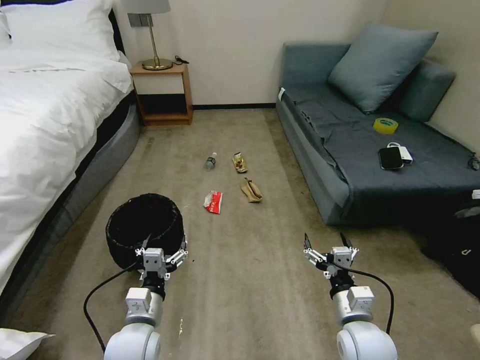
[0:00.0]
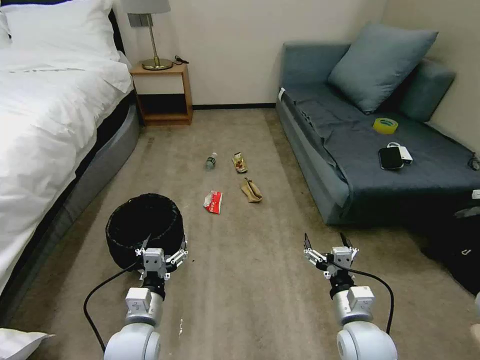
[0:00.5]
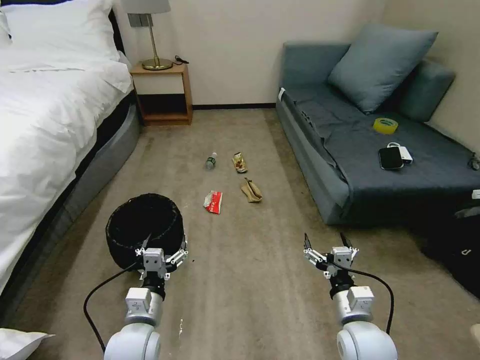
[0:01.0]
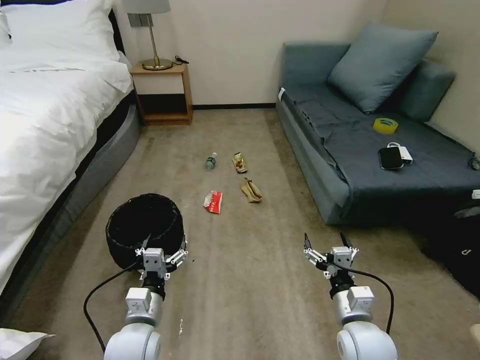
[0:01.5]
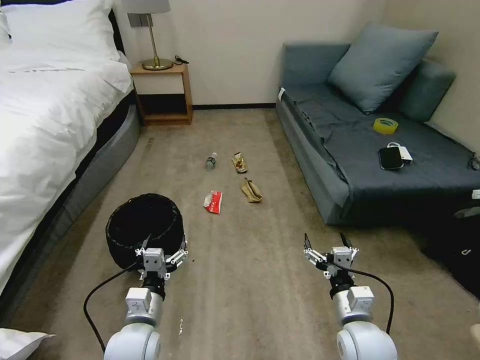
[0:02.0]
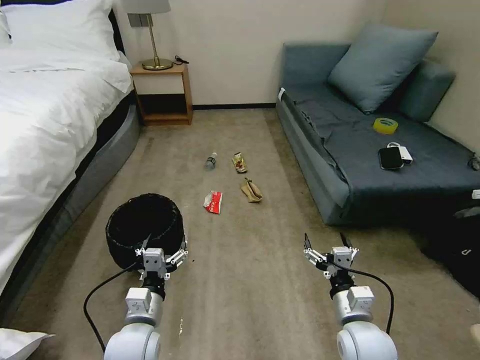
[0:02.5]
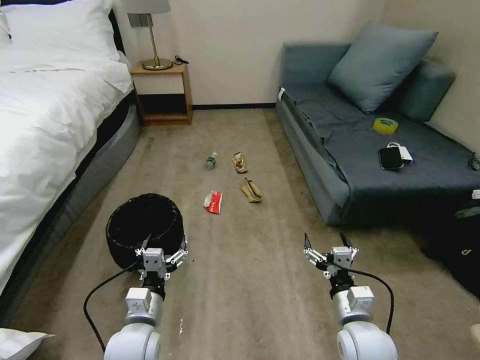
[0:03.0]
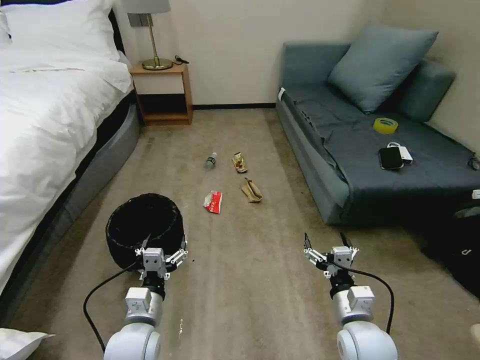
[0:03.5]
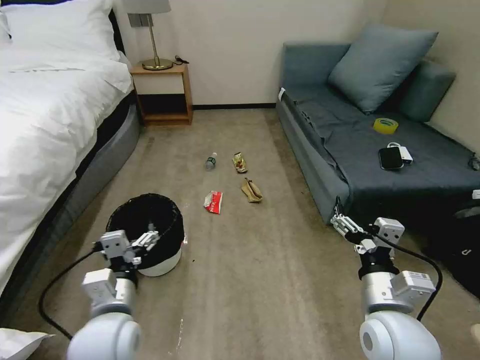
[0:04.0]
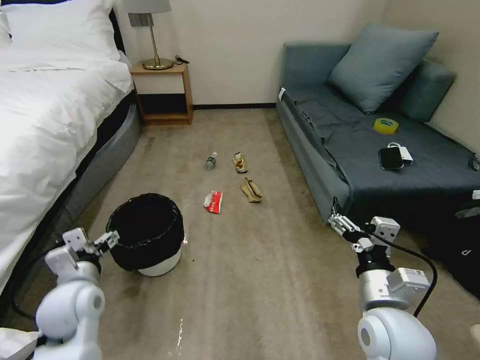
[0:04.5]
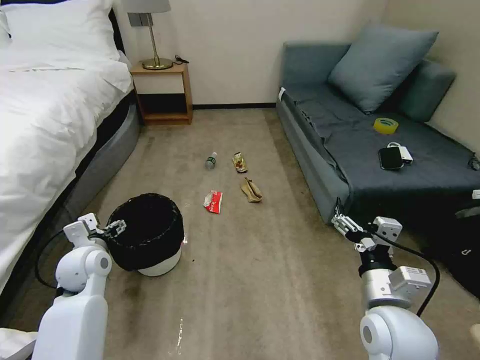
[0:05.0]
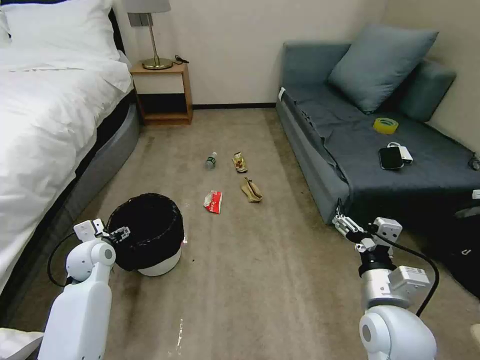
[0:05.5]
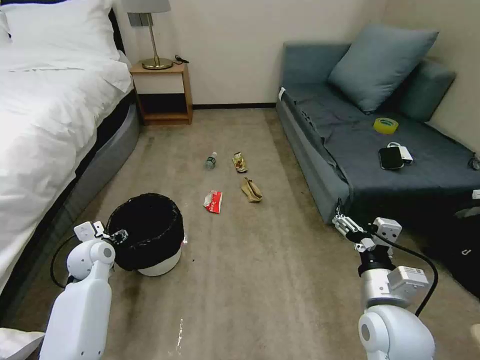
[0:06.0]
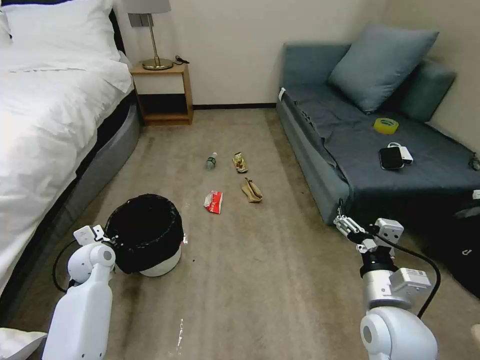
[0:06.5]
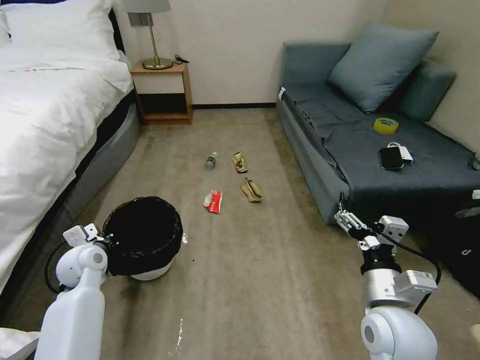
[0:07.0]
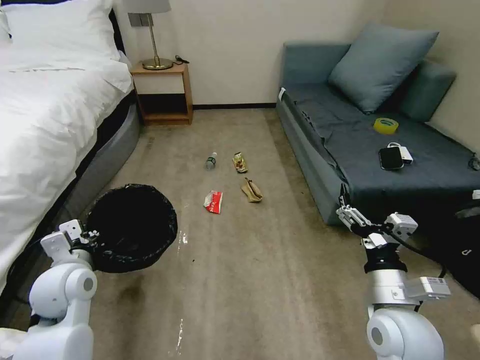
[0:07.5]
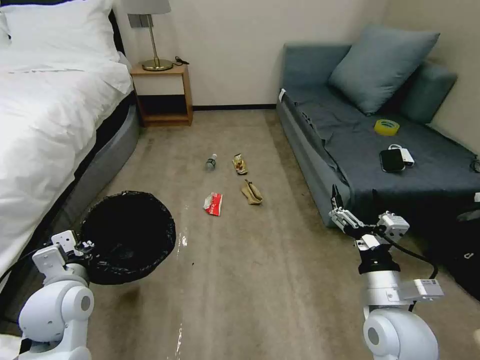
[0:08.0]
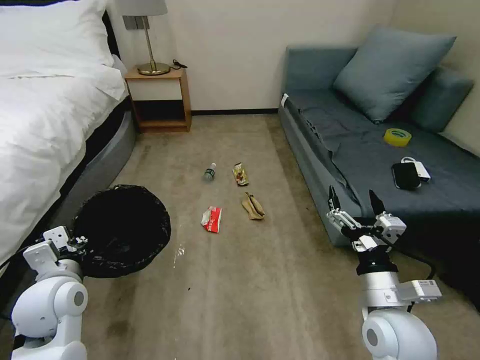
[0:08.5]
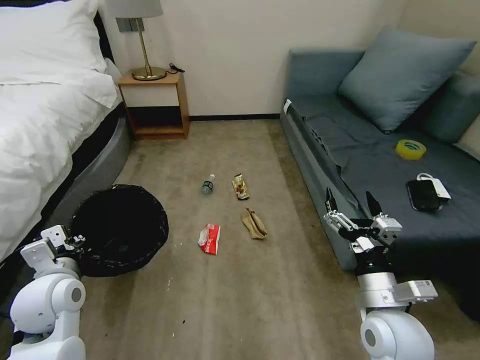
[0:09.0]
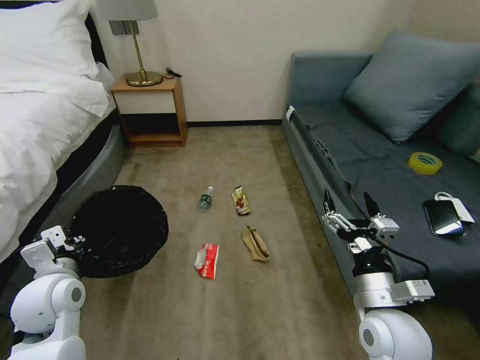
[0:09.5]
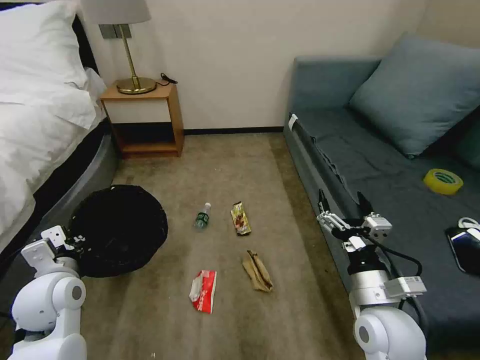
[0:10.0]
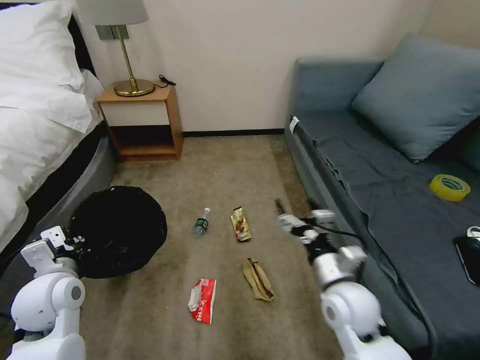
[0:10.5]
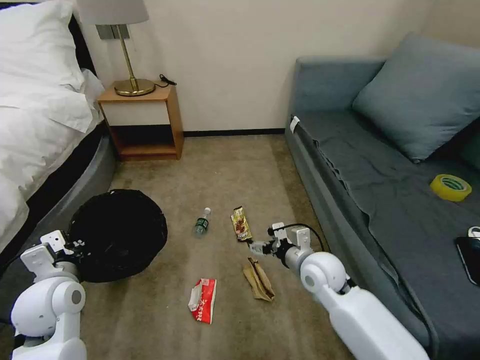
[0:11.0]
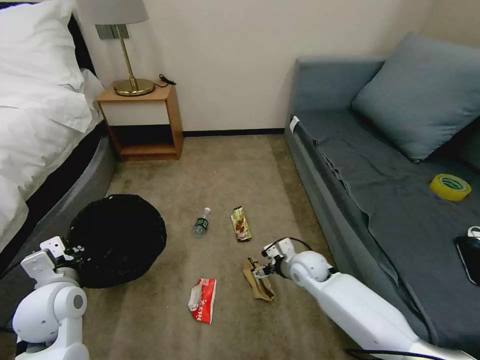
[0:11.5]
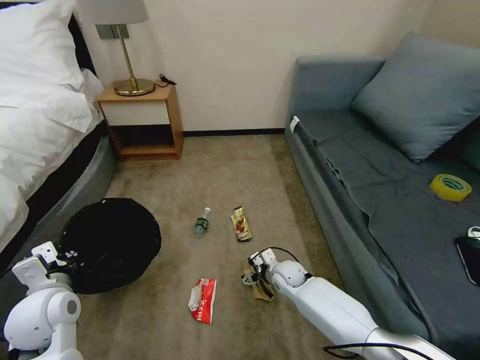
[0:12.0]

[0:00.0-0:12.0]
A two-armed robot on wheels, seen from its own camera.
Task of the whole recording: Pick up the trash bin, then pick up the garbage on the floor and place it into the trash bin.
0:02.0 to 0:04.0: The two grippers go some 10 cm upward.
0:04.0 to 0:06.0: The left gripper is displaced forward and to the left by approximately 25 cm.
0:06.0 to 0:08.0: The left gripper goes about 15 cm backward and upward, and closes up.
0:10.0 to 0:12.0: The right gripper goes roughly 30 cm downward, forward and to the left.

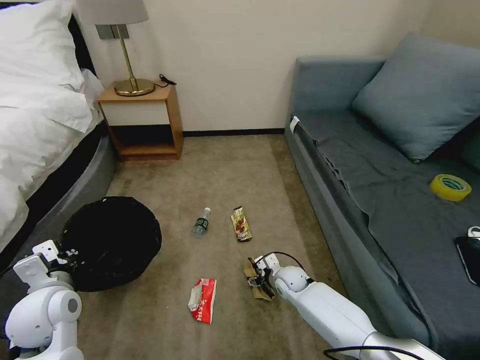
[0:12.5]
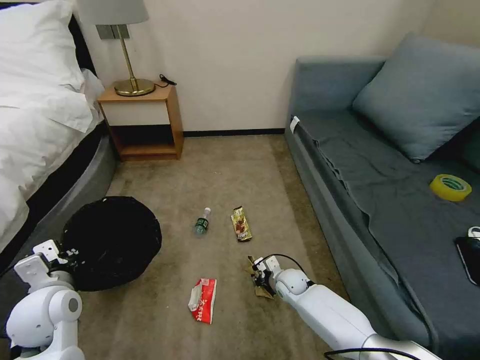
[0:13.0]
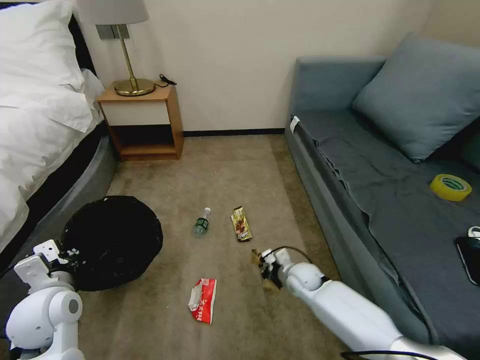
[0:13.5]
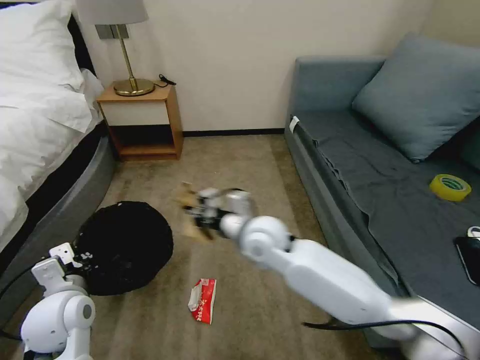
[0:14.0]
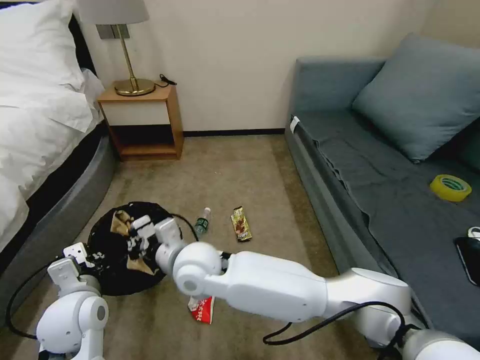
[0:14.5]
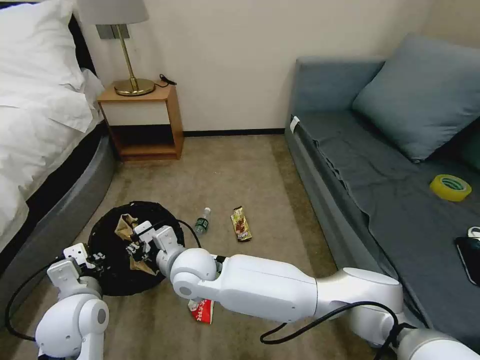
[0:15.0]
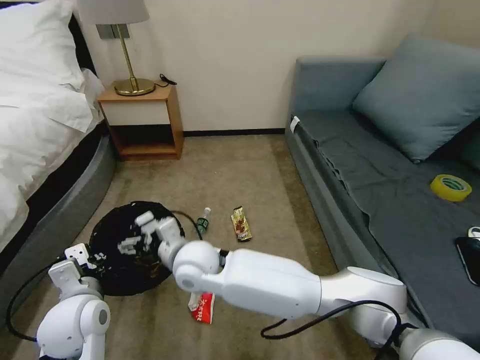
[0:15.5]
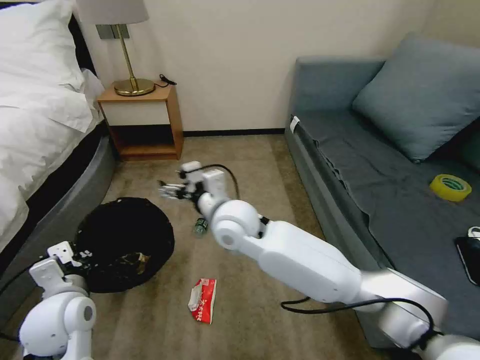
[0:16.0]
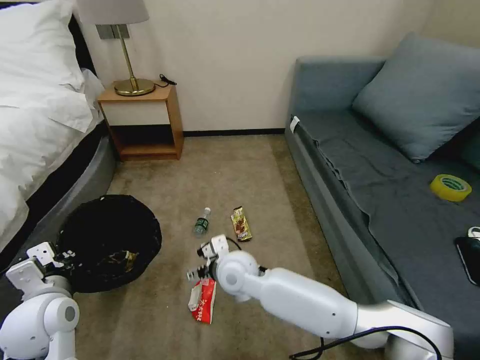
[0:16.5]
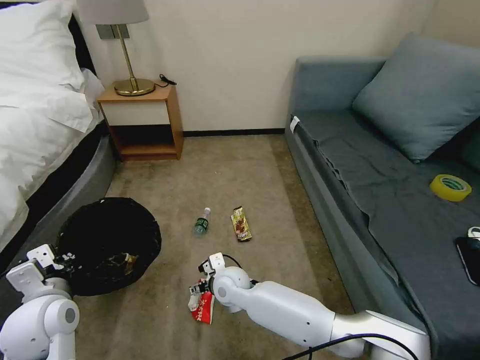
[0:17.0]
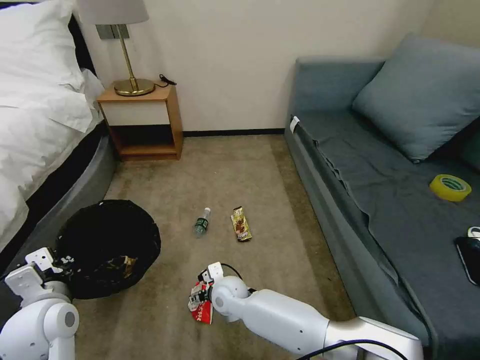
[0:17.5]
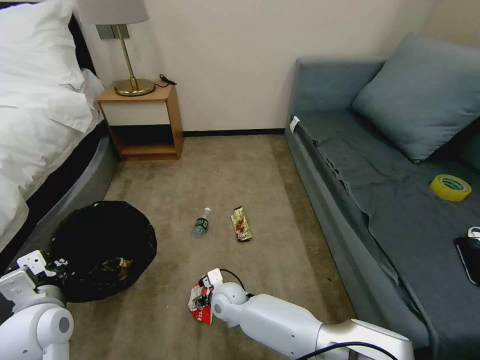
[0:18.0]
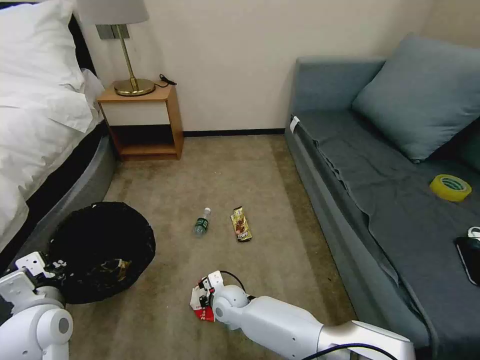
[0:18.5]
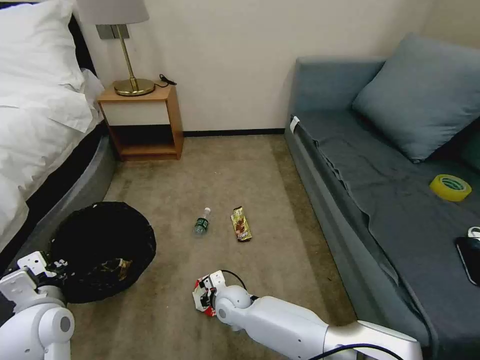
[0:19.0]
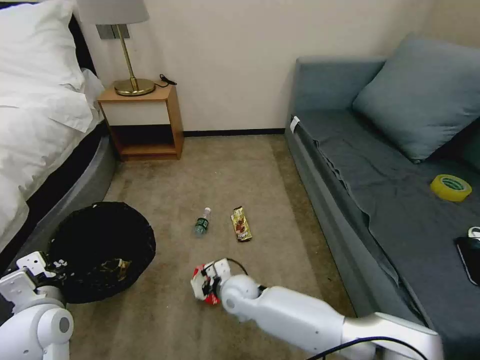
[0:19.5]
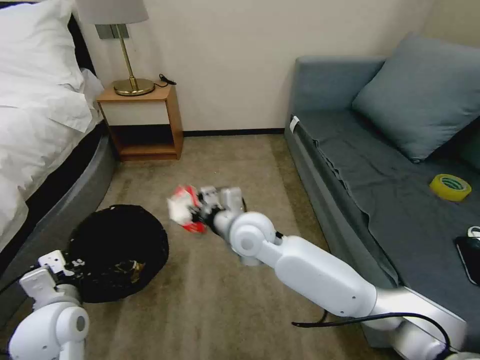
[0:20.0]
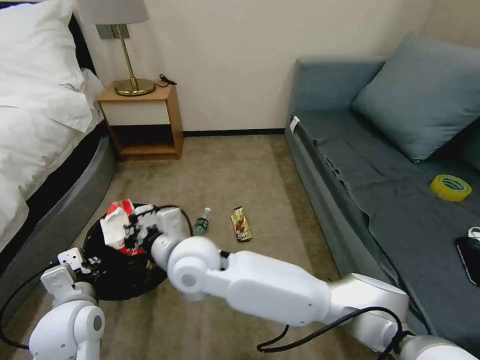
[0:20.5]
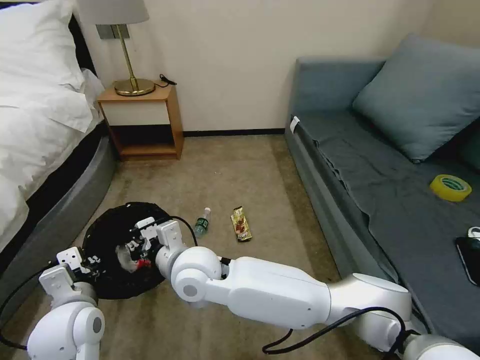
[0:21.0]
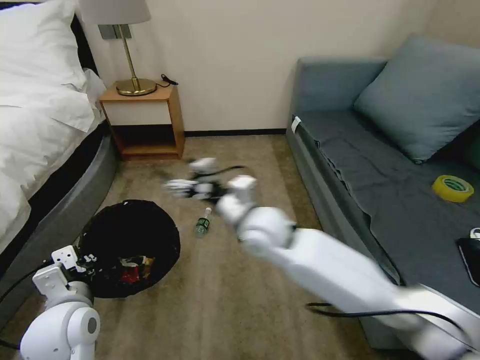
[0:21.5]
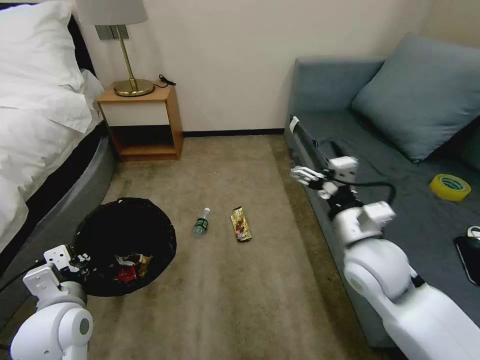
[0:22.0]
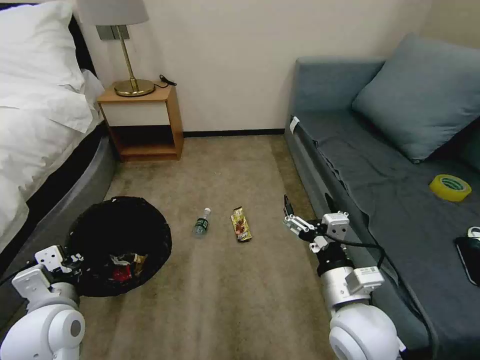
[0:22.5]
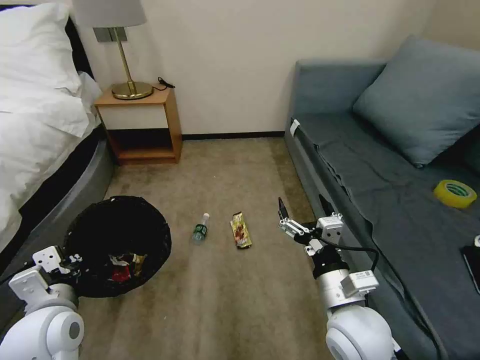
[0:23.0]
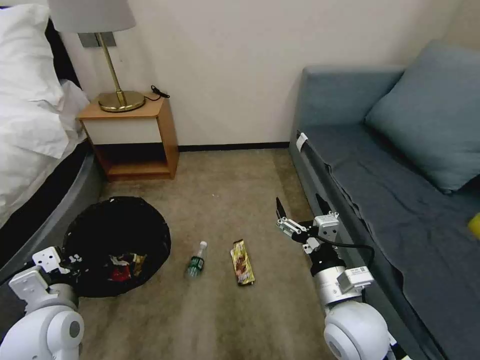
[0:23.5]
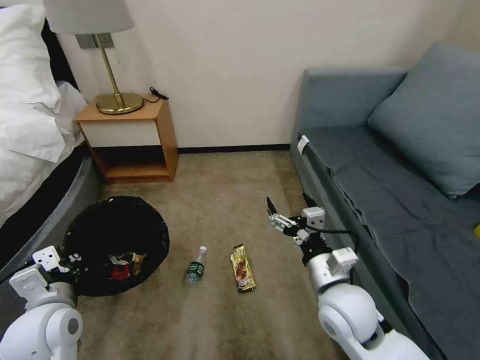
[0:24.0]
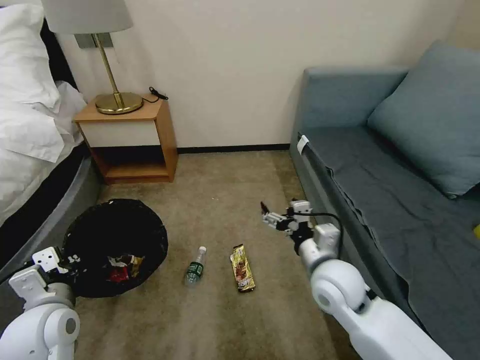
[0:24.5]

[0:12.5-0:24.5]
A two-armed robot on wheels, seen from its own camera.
Task of the whole recording: Pick up the trash bin, then pick up the garbage on the floor and place it into the trash bin.
0:12.5 to 0:14.5: The left gripper travels to the right by roughly 5 cm; the right gripper shifts about 35 cm to the left and upward, and closes its fingers.
0:14.5 to 0:16.5: The right gripper travels to the right and downward by roughly 10 cm, and opens up.
0:16.5 to 0:18.5: The right gripper is displaced downward by approximately 15 cm, and closes its fingers.
0:18.5 to 0:20.5: The right gripper is displaced upward by about 30 cm.
0:20.5 to 0:22.5: The right gripper goes approximately 30 cm to the right, and opens up.
0:22.5 to 0:24.5: The right gripper travels forward by about 10 cm.

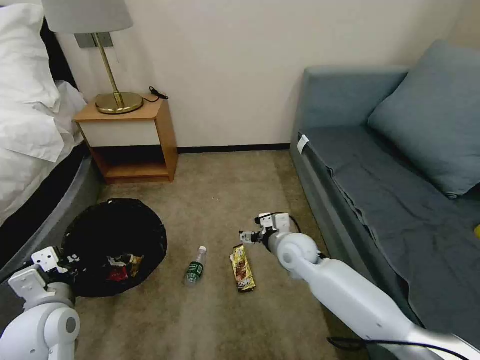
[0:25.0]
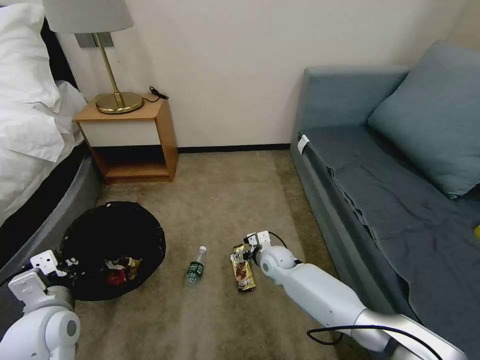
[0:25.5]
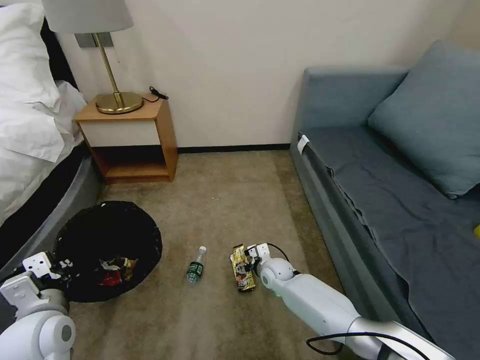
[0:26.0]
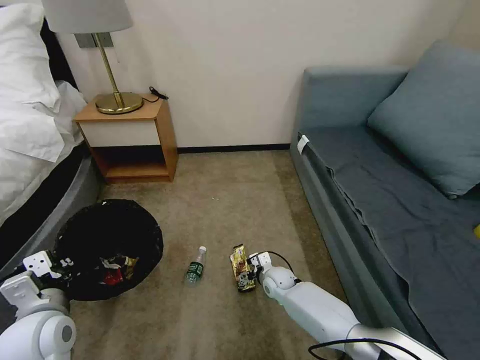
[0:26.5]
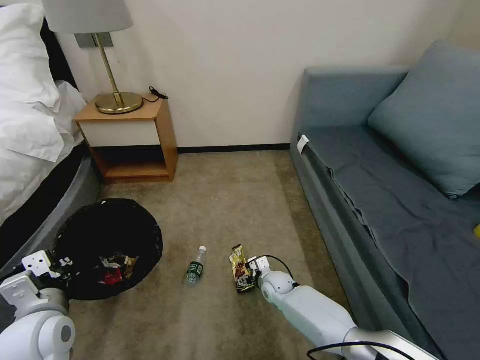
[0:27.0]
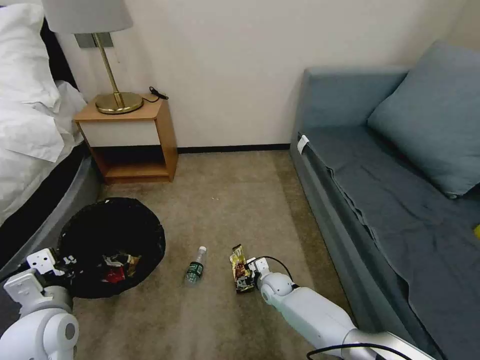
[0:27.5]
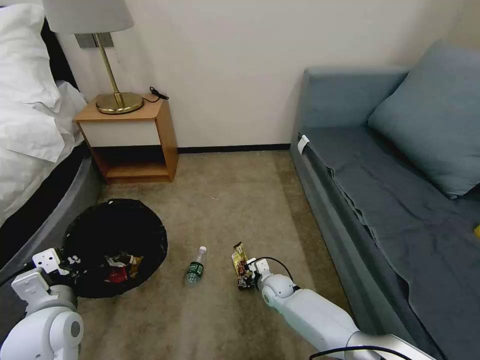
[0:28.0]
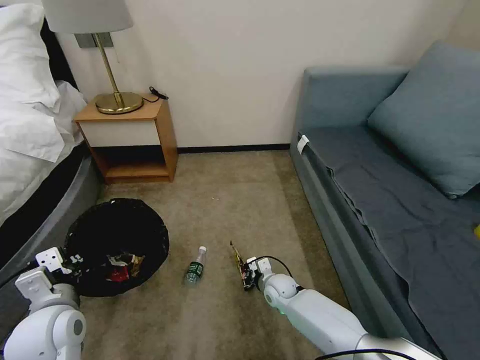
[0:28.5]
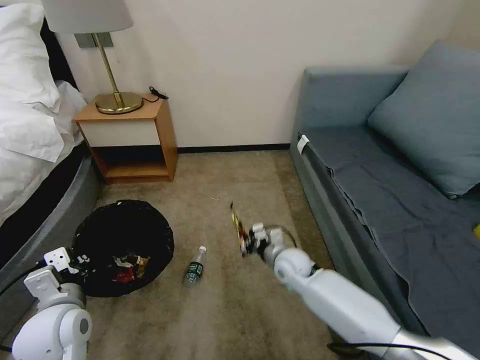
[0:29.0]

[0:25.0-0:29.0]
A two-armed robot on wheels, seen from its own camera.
Task of the whole recording: Pick up the trash bin, then pick up the garbage on the floor and place it into the trash bin.
0:25.0 to 0:27.0: The right gripper travels downward by about 20 cm.
0:27.0 to 0:29.0: The right gripper closes.
